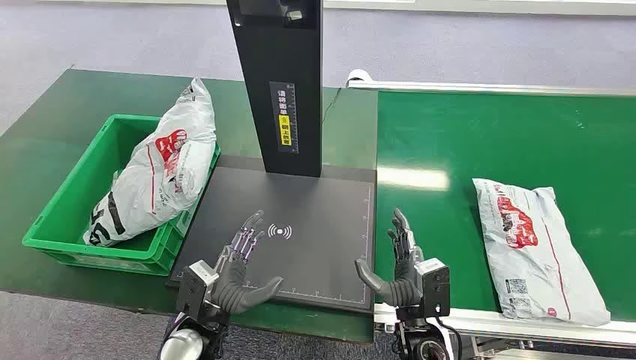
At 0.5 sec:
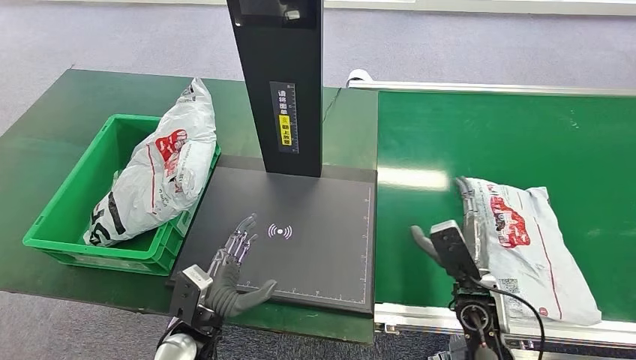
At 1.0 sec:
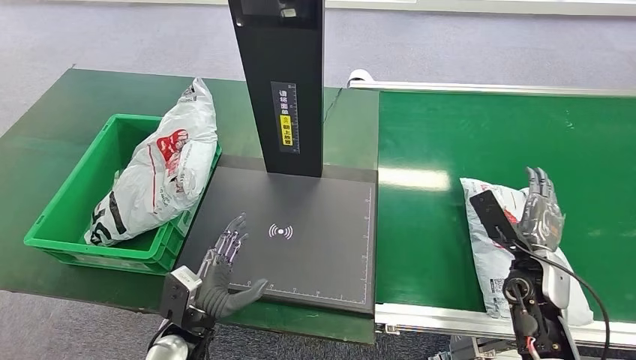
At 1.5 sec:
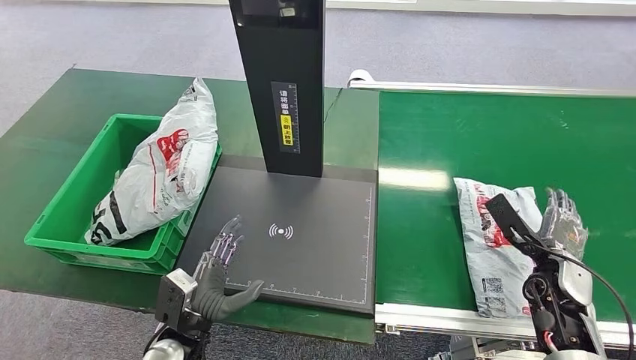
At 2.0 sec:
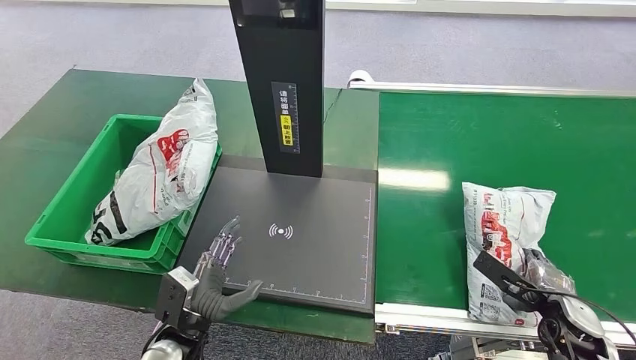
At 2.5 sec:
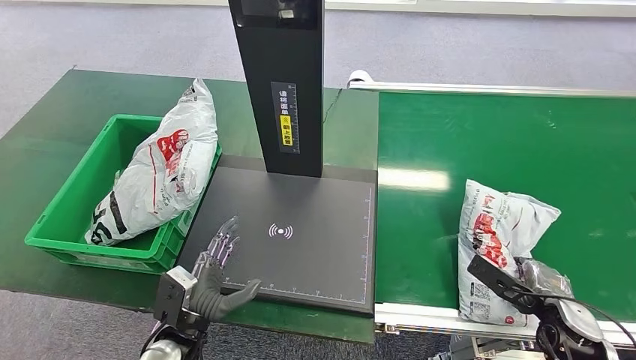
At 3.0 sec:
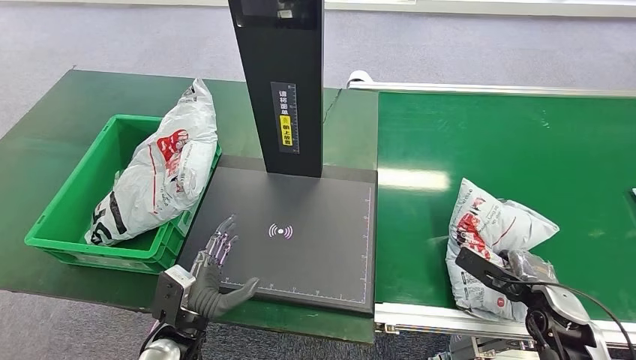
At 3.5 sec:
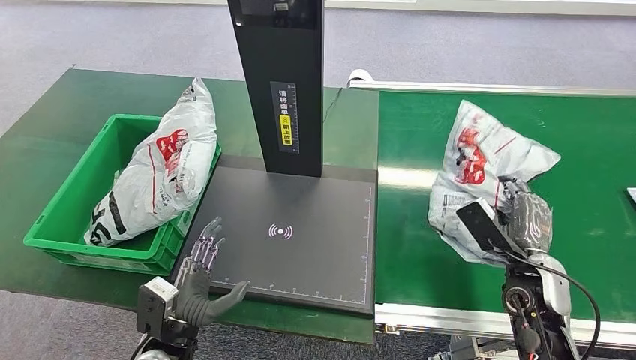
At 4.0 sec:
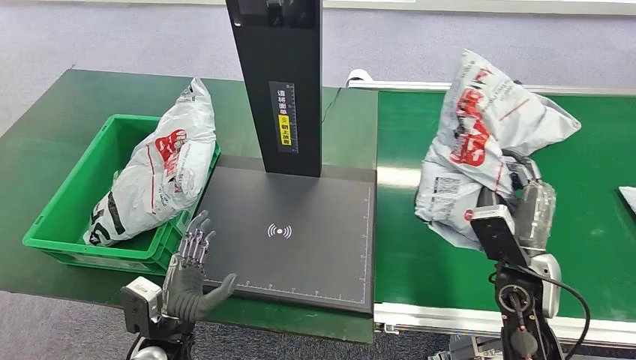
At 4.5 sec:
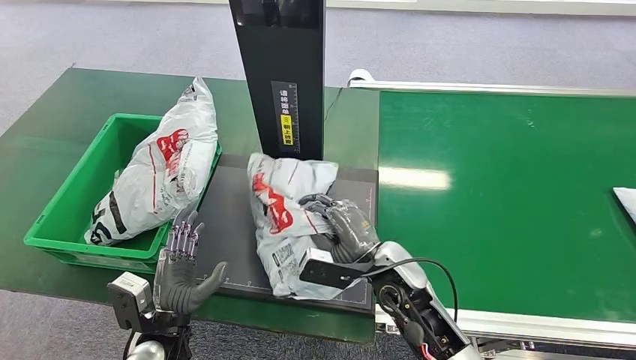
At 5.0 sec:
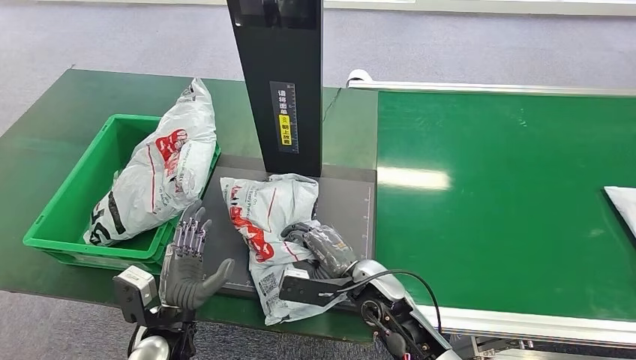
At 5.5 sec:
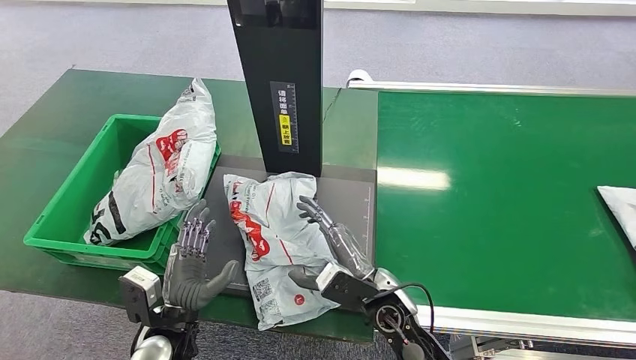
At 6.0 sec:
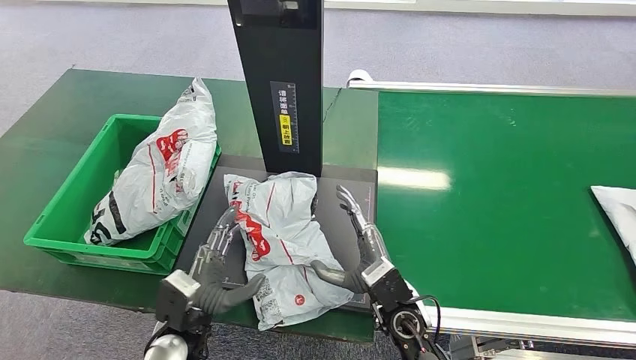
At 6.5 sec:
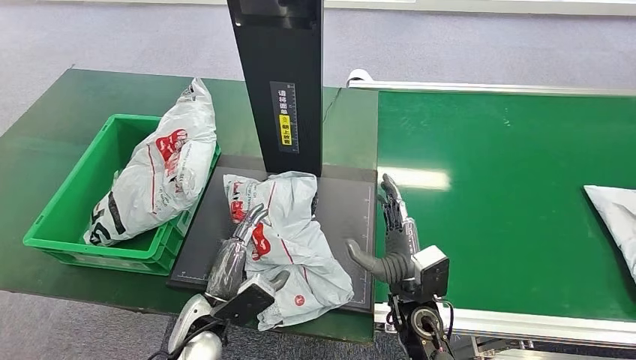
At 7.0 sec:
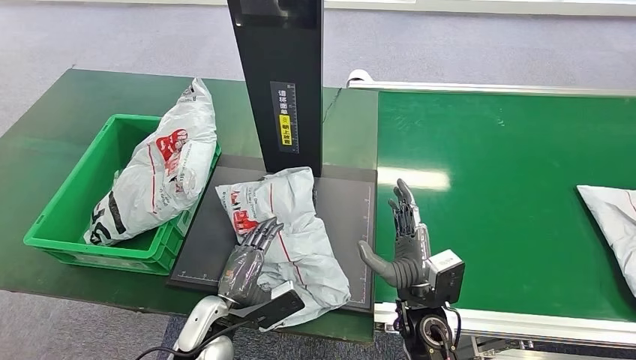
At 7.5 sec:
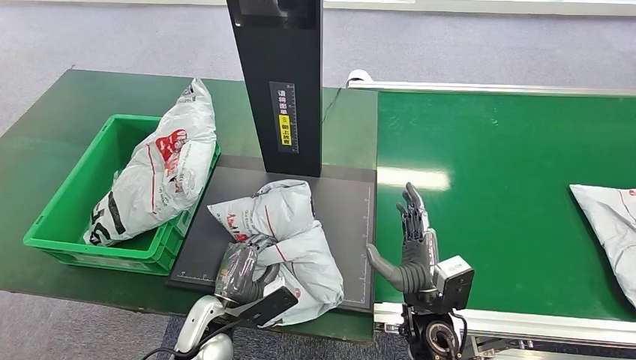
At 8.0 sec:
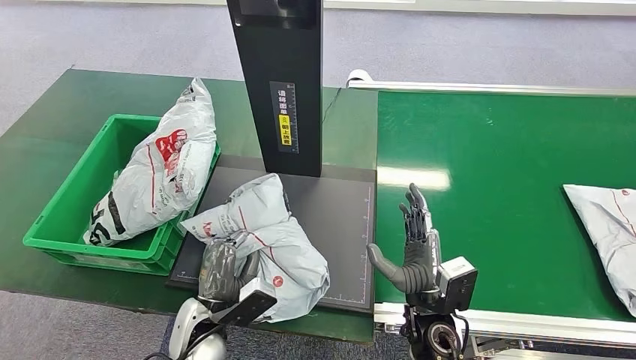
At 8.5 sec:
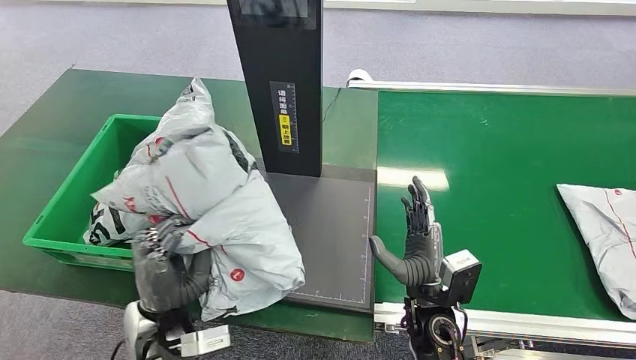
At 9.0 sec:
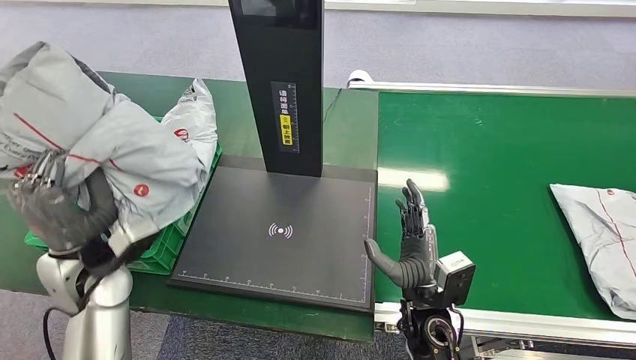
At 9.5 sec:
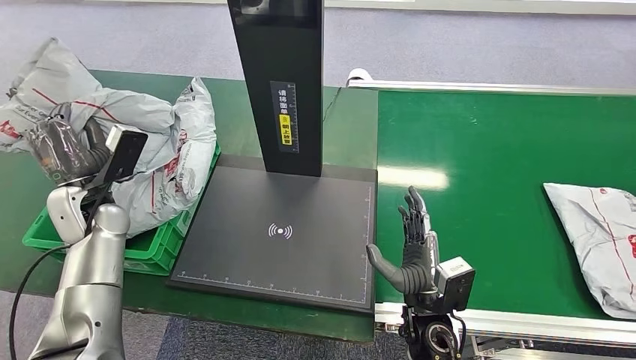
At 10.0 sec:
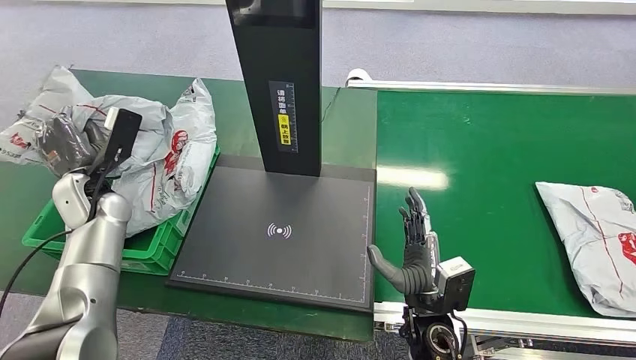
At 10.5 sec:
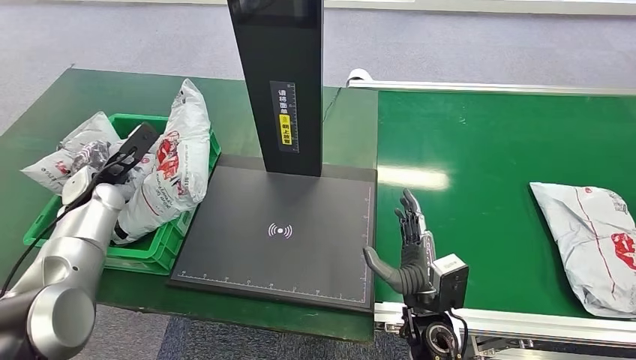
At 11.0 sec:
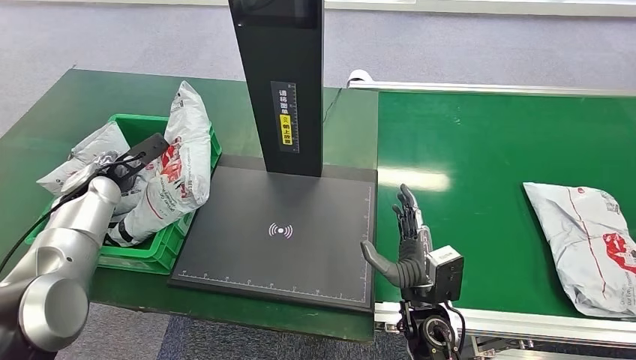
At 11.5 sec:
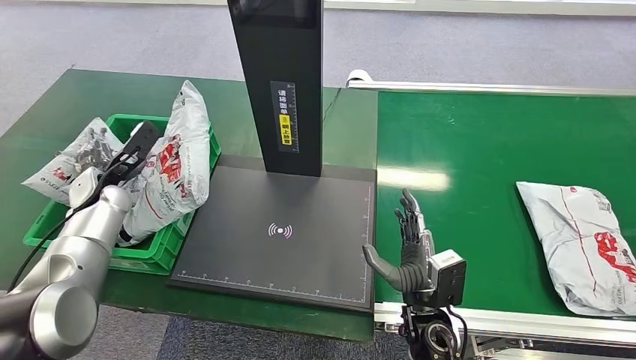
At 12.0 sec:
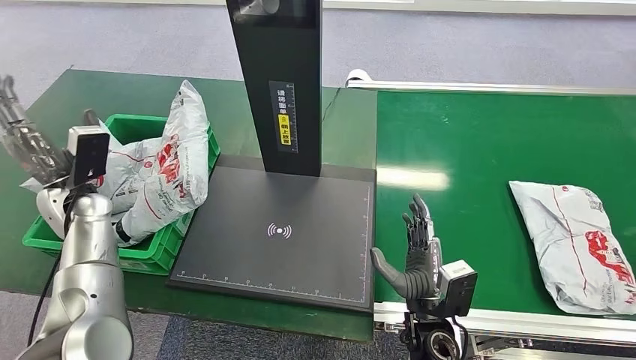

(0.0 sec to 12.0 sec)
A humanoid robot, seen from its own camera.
Step, 0.0 sec - 3.5 sec: Pick up the package from the conveyor belt.
Step, 4.0 sec - 5.5 sec: Place the package onto the inbound machine.
Step, 6.5 sec - 8.5 sec: Pick up the package from the inbound machine.
Step, 9.0 sec - 12.0 sec: Place the package into the parcel locker.

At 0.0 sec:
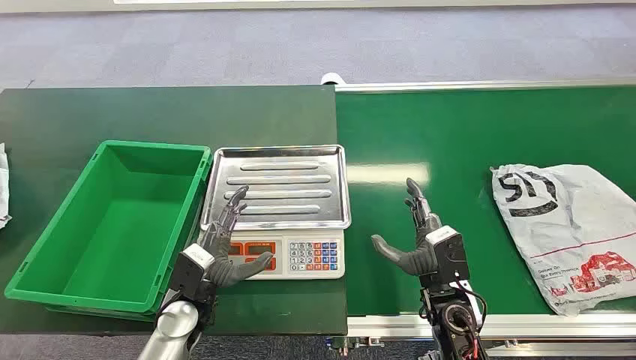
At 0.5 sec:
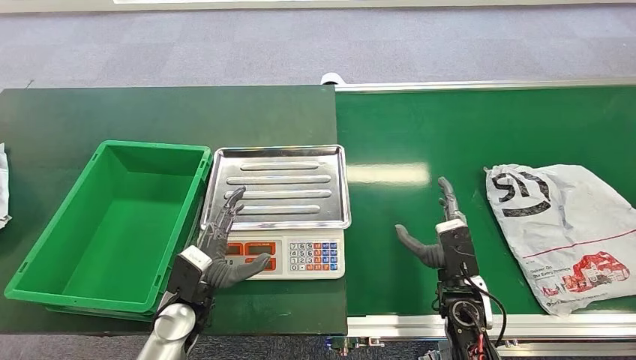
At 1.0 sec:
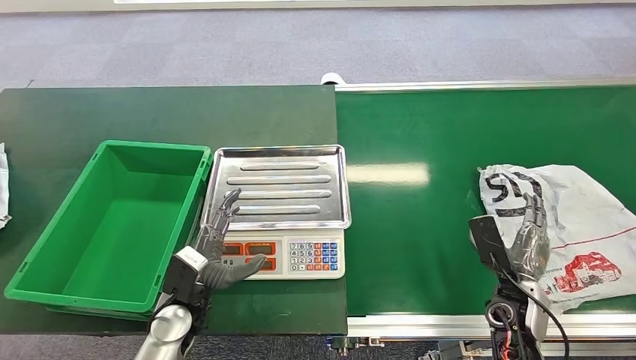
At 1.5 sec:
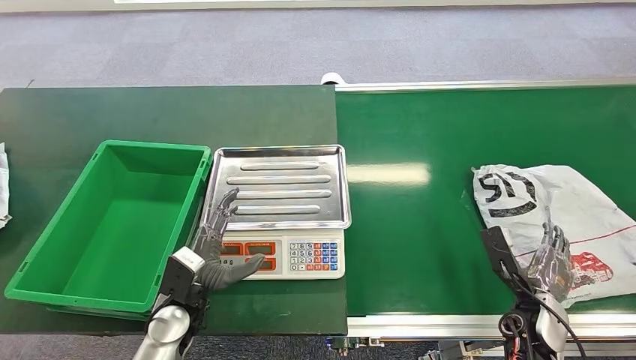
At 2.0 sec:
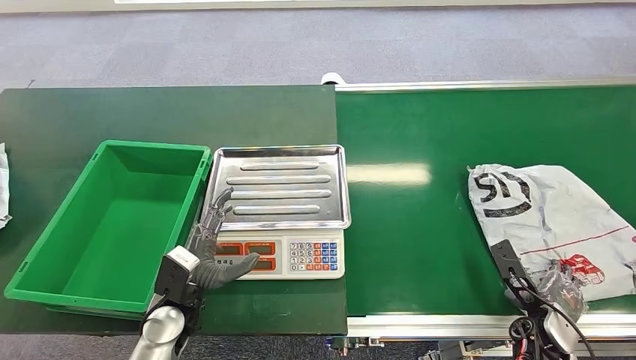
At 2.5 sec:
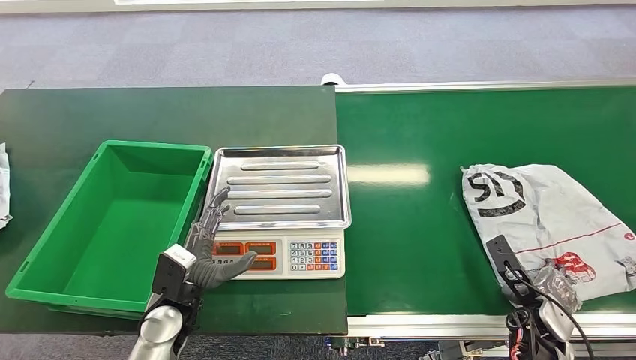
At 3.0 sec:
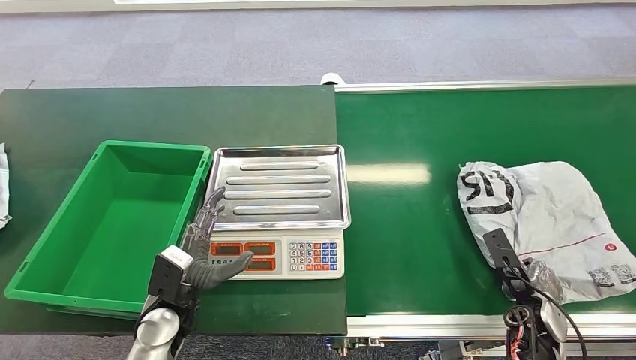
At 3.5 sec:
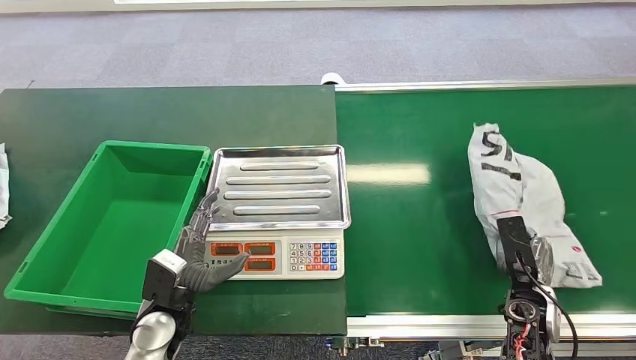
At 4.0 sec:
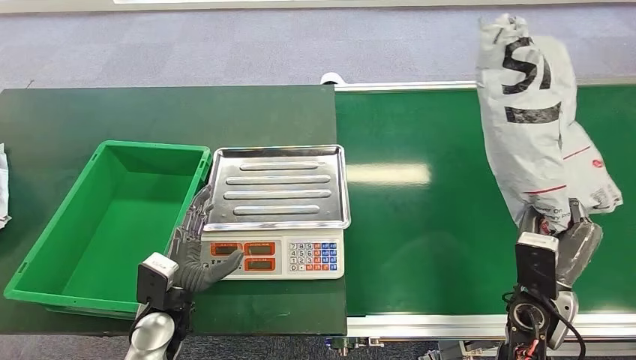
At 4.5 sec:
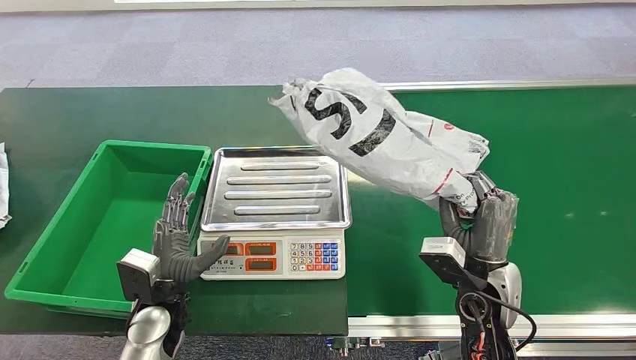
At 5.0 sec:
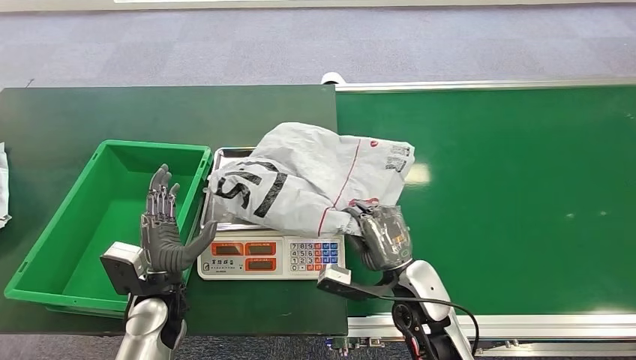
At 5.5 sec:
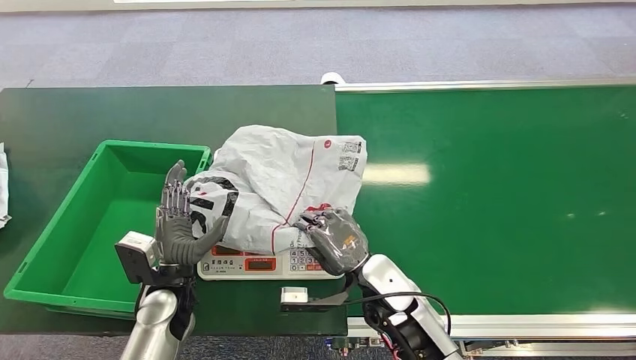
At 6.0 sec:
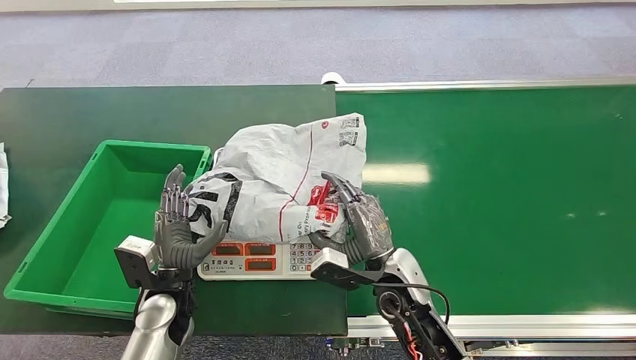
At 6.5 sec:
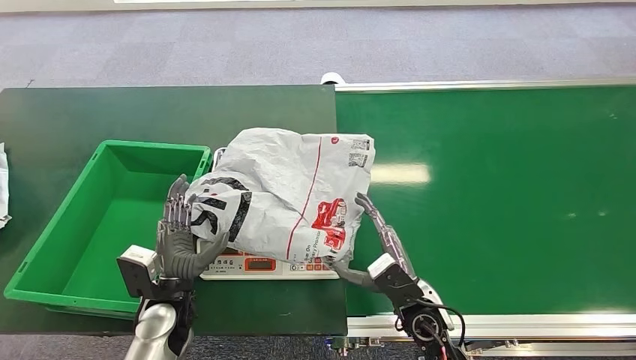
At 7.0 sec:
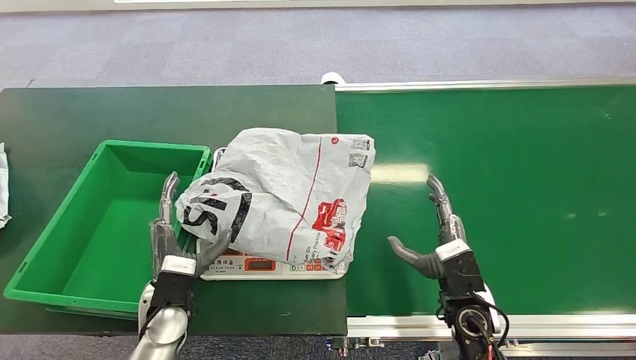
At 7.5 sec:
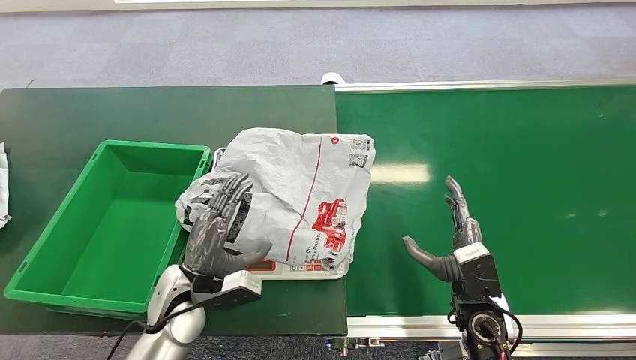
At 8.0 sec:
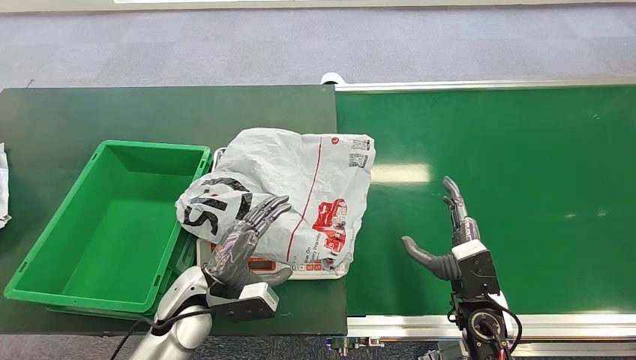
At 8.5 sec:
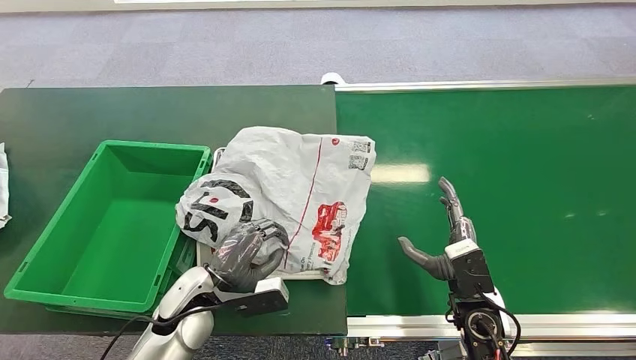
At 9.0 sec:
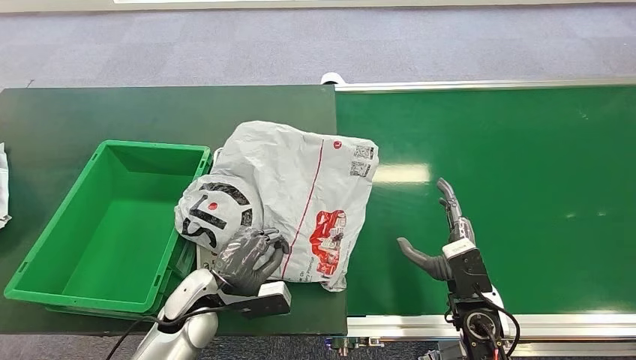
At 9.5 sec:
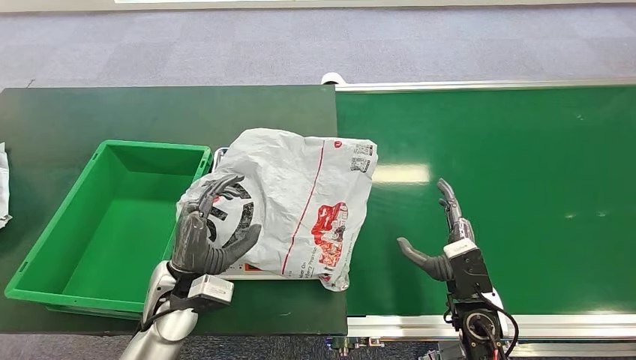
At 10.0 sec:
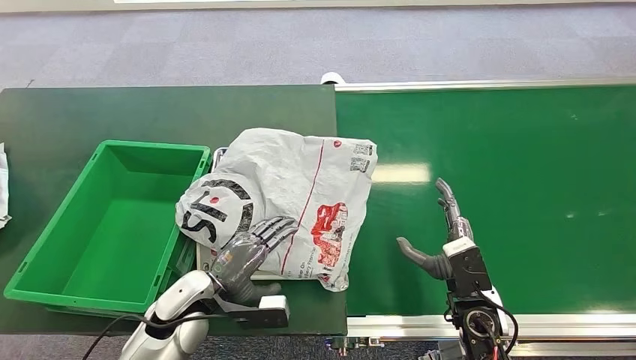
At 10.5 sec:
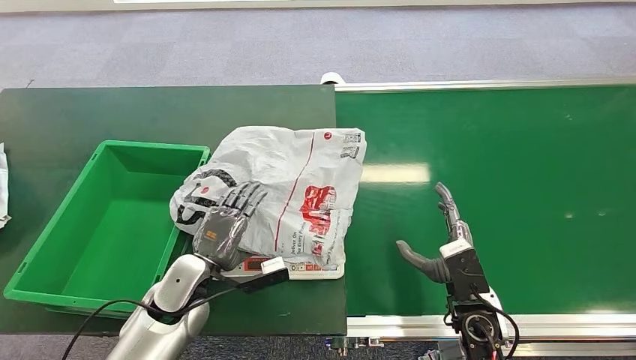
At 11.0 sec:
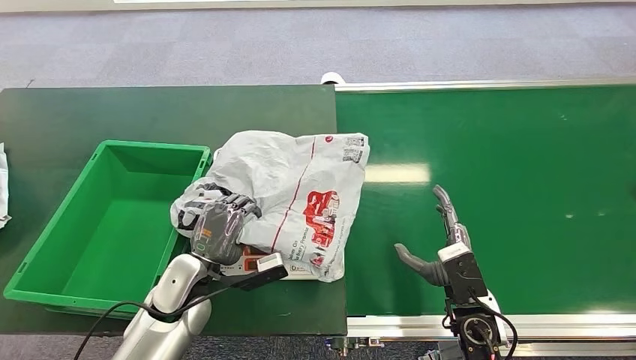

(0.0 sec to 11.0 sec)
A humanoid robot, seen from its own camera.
Step, 0.0 sec - 4.0 sec: Pick up the package from the conveyor belt.
Step, 4.5 sec - 7.0 sec: Place the package onto the inbound machine.
5.5 sec - 7.5 sec: The right hand is displaced to the right by roughly 15 cm.
